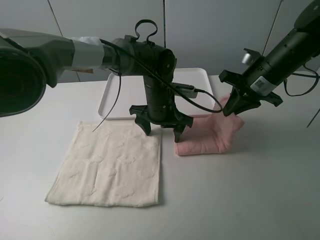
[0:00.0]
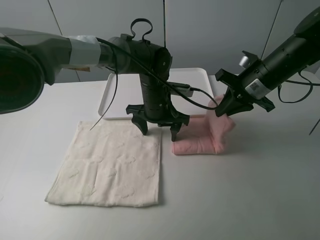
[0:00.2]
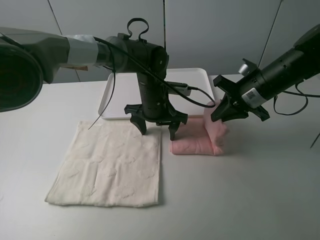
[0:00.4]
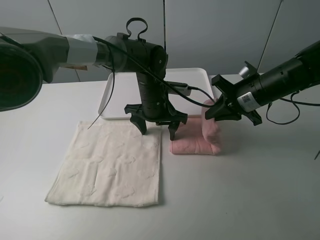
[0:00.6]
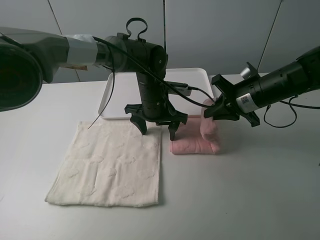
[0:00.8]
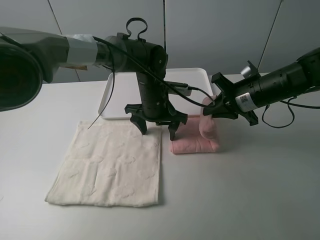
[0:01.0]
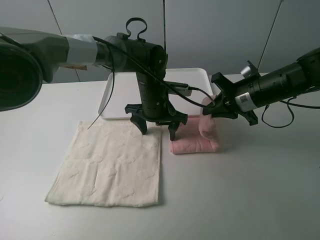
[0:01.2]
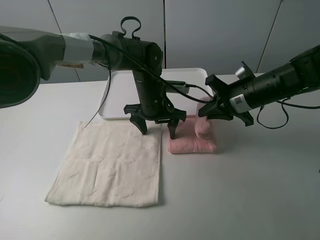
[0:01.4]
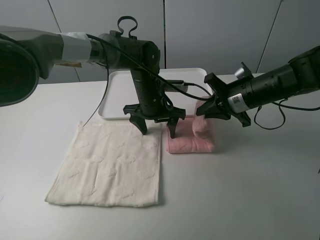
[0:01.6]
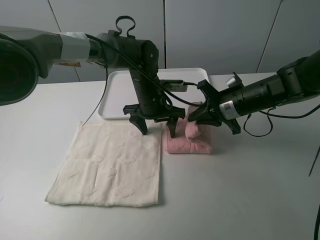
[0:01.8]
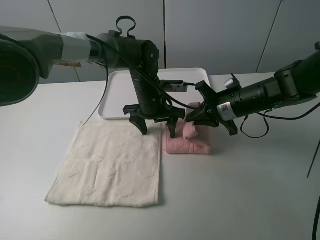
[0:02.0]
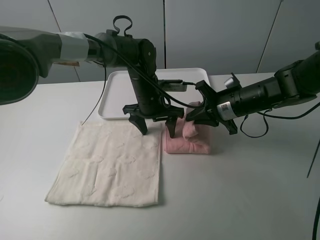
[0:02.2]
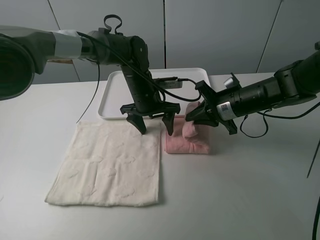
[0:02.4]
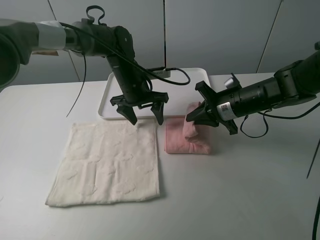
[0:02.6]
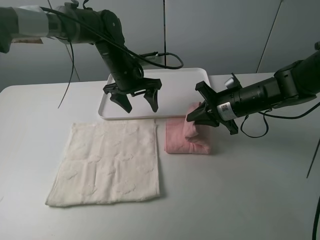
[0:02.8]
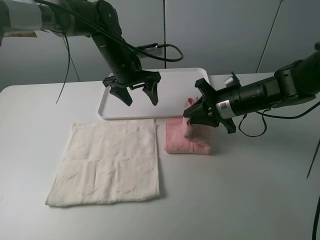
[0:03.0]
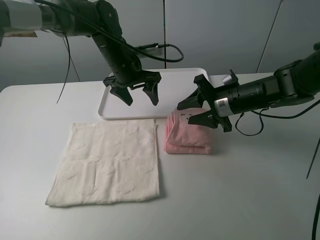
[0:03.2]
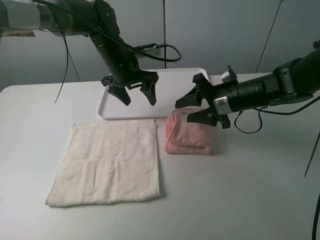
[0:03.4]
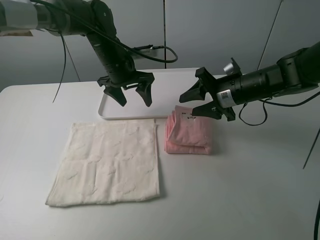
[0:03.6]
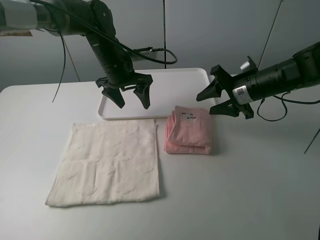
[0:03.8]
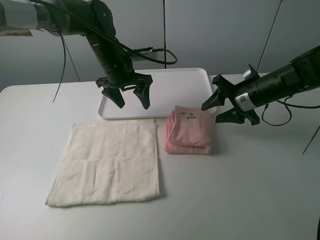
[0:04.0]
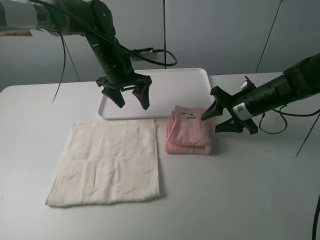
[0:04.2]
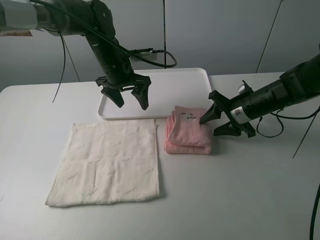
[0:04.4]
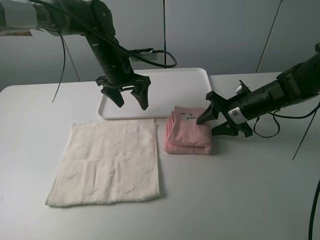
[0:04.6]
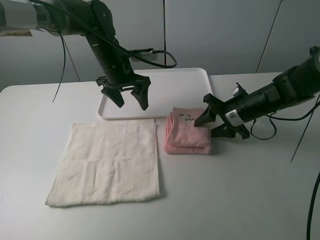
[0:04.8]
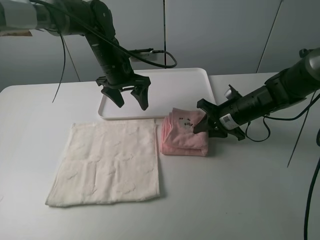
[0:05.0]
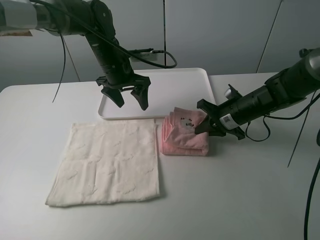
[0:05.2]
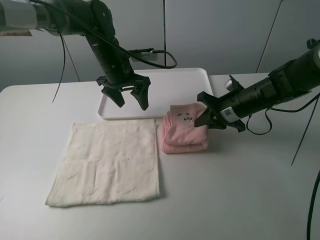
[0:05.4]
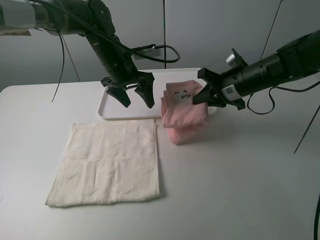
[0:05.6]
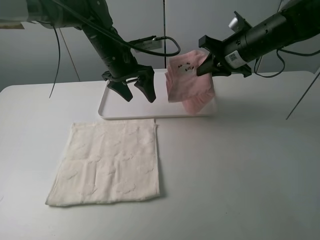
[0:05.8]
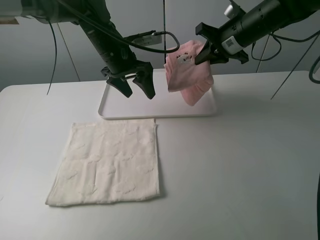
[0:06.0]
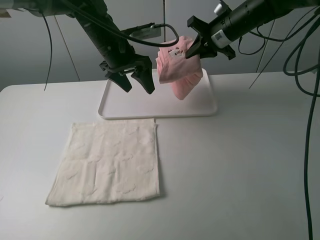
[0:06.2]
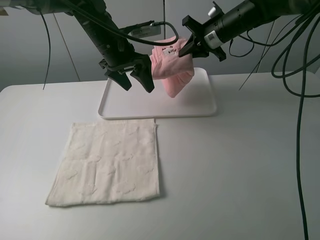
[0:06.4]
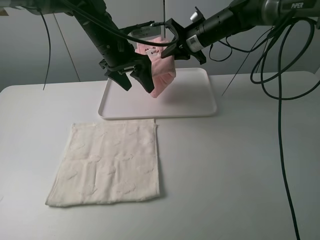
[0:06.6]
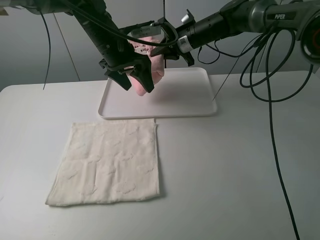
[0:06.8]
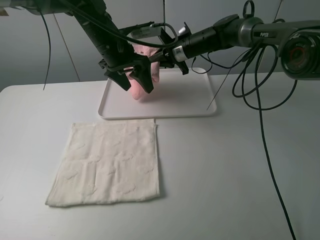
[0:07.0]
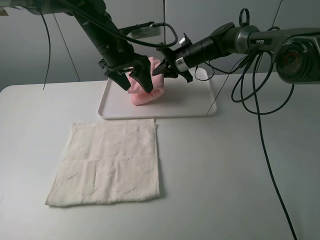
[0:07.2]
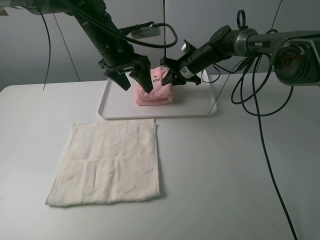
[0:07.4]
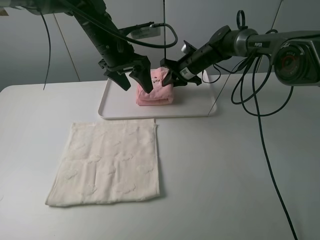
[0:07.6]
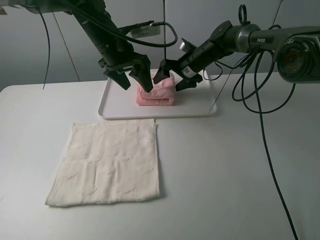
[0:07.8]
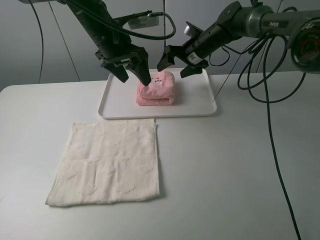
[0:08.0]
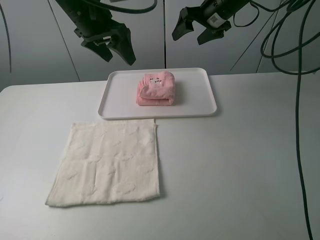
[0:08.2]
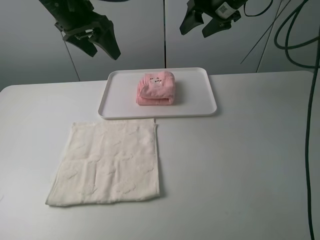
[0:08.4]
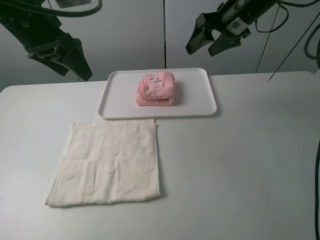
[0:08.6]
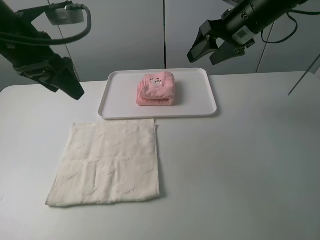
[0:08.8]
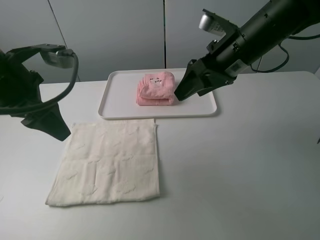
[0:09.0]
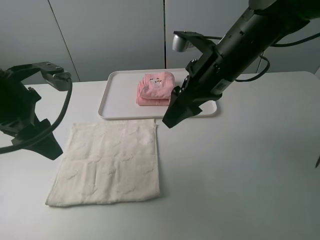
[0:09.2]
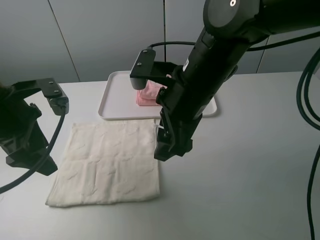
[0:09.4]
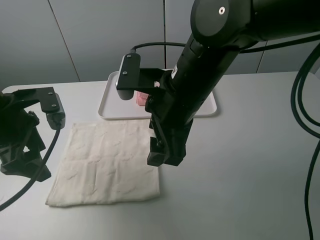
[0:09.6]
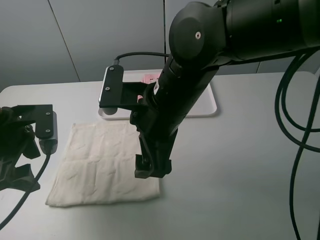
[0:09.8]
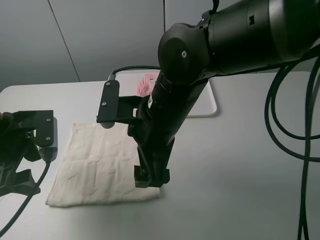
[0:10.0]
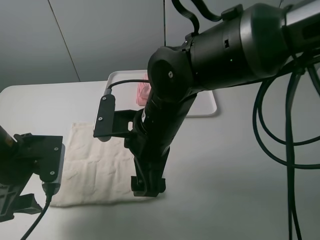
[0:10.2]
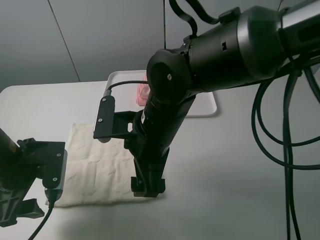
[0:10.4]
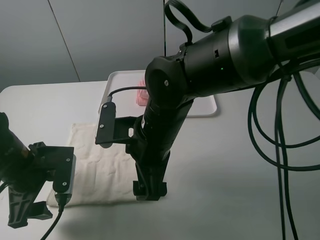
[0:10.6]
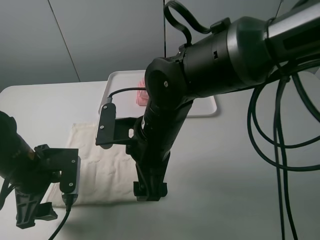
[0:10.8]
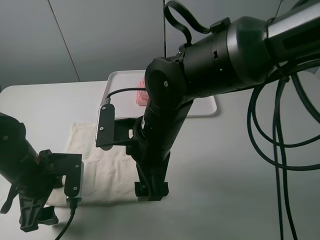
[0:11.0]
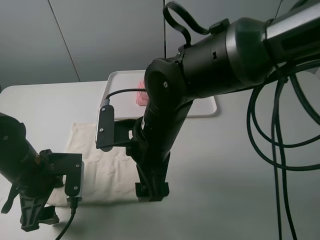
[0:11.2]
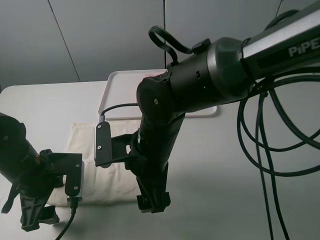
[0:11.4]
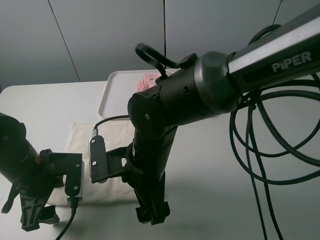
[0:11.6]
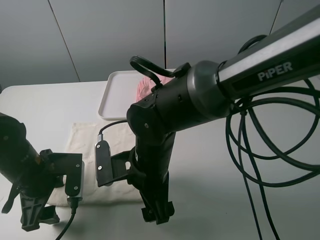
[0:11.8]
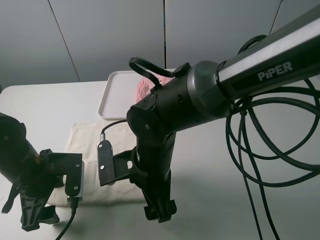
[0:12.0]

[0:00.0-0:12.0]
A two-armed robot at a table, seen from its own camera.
Task of the whole recording: fold one of the towels by two grippers and place it on the tray,then fold another towel by two grippers and place it on the folded towel.
Step, 0:00.0 to 0:03.4: Fold the pink towel from right to left with right gripper.
Step, 0:03.6 to 0:05.2: Grasp the pink towel with the right gripper.
Step, 0:05.4 to 0:08.0: Move the pink towel to the plate with the right gripper.
0:00.0 to 0:01.6: The right gripper changes place by some 5 cm.
0:01.6 to 0:03.0: The left gripper is displaced to the left and upward by about 10 cm.
0:03.0 to 0:04.4: The right gripper ends up approximately 5 cm from where it was.
0:04.4 to 0:06.0: The right gripper moves upward and forward, approximately 15 cm, and closes up.
0:06.0 to 0:07.6: The right gripper goes approximately 20 cm downward, forward and to the left.
0:07.6 to 0:09.0: The left gripper travels backward and to the left by roughly 20 cm; the right gripper shifts roughly 25 cm backward and upward, and opens.
0:09.0 to 0:10.4: The right gripper is displaced to the left, backward and downward by some 20 cm. Meanwhile the left gripper shifts roughly 15 cm downward and backward.
0:10.4 to 0:12.0: The right gripper is displaced downward by about 5 cm.

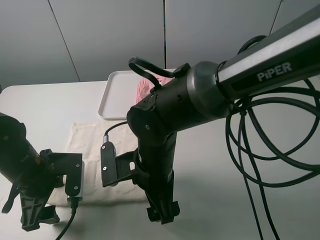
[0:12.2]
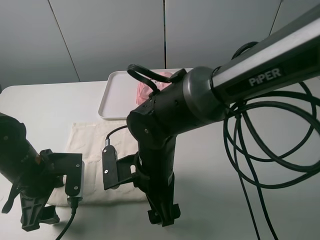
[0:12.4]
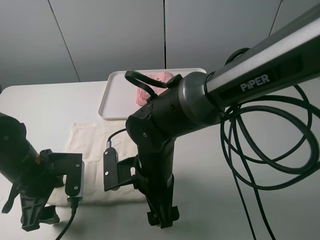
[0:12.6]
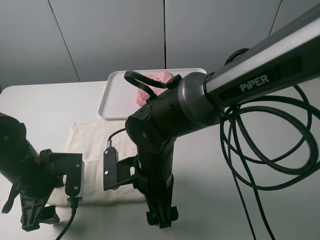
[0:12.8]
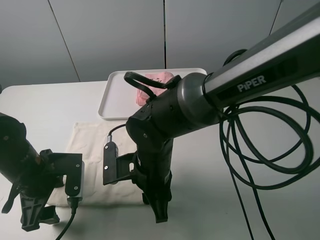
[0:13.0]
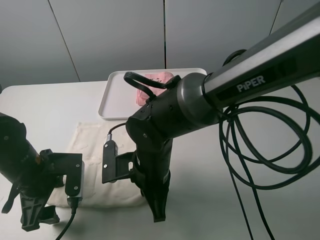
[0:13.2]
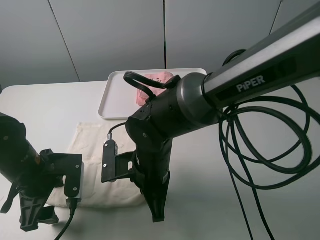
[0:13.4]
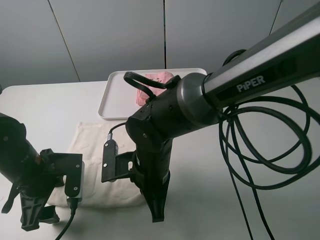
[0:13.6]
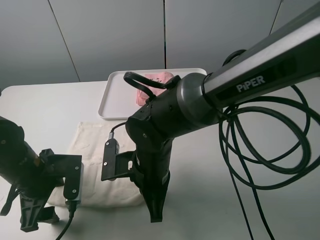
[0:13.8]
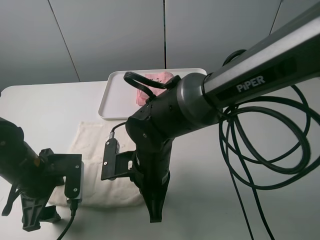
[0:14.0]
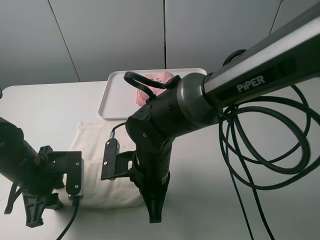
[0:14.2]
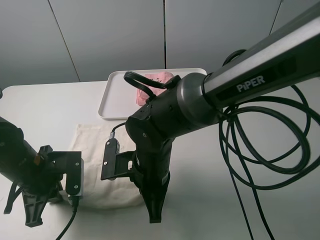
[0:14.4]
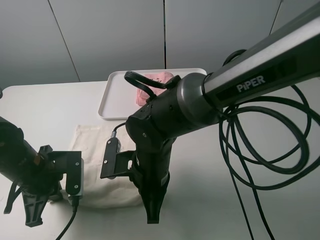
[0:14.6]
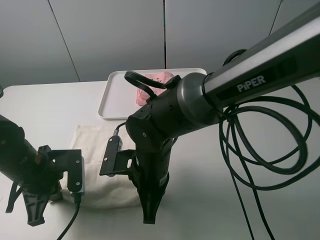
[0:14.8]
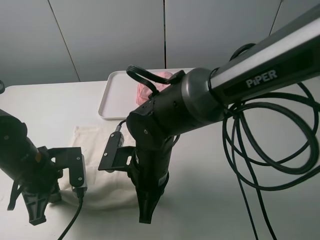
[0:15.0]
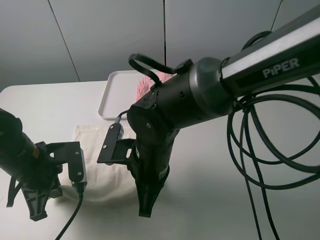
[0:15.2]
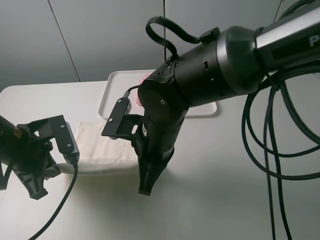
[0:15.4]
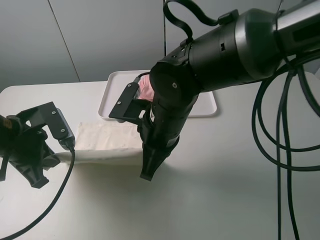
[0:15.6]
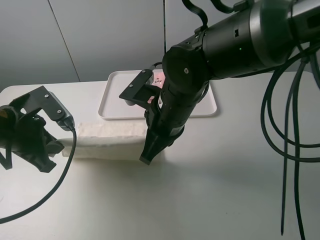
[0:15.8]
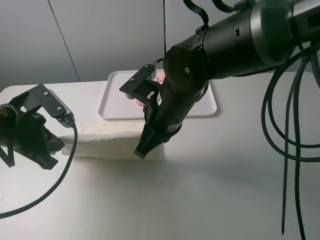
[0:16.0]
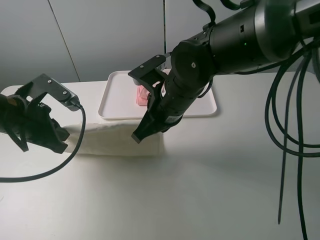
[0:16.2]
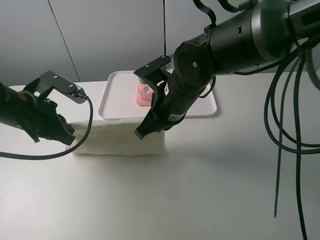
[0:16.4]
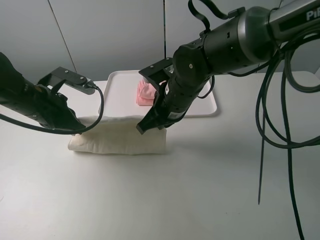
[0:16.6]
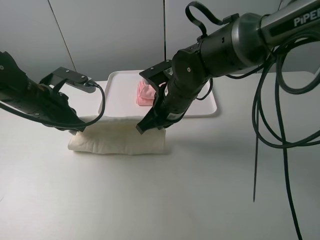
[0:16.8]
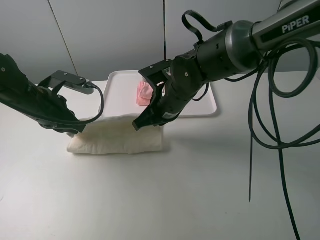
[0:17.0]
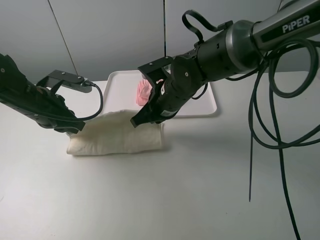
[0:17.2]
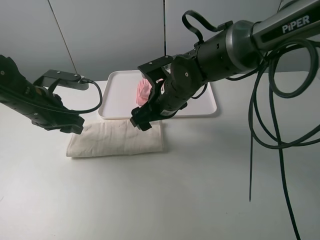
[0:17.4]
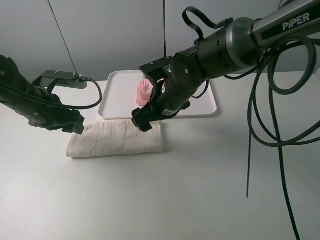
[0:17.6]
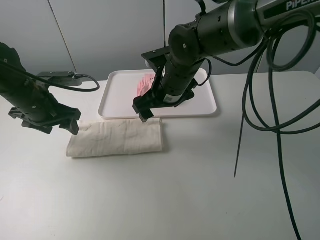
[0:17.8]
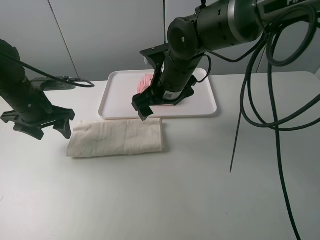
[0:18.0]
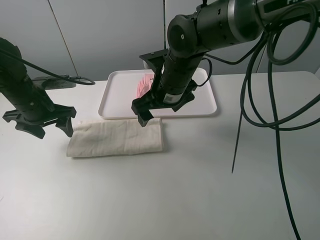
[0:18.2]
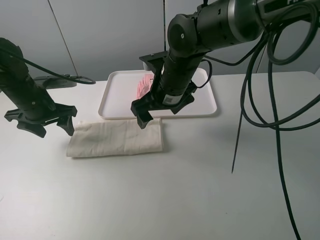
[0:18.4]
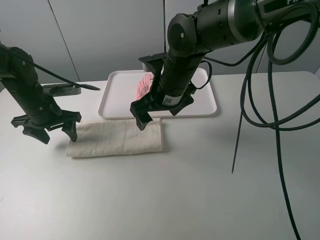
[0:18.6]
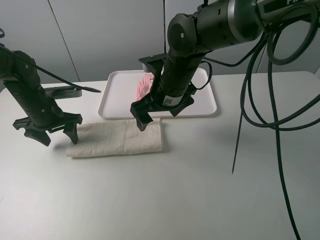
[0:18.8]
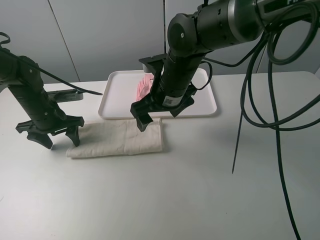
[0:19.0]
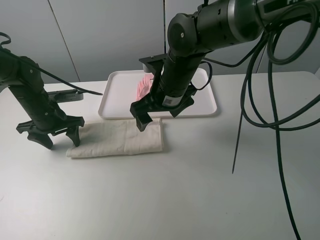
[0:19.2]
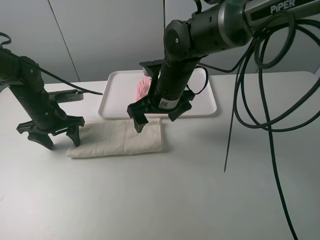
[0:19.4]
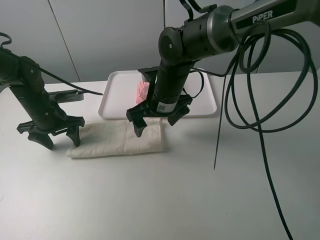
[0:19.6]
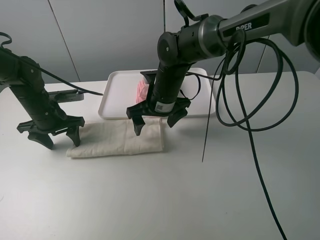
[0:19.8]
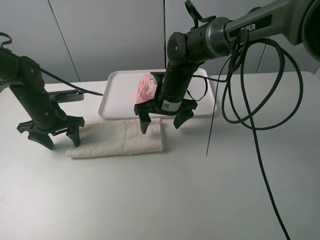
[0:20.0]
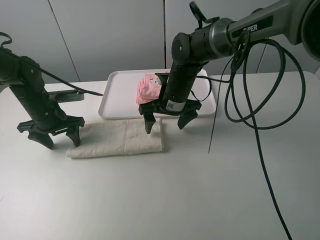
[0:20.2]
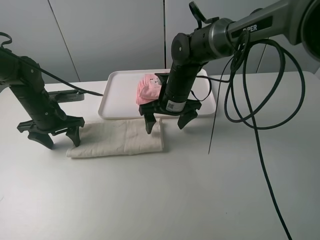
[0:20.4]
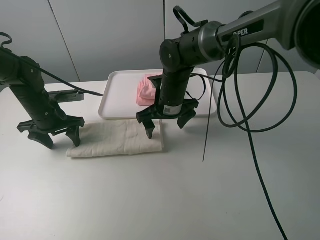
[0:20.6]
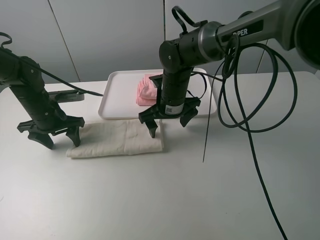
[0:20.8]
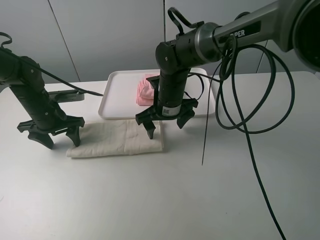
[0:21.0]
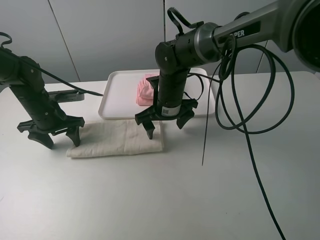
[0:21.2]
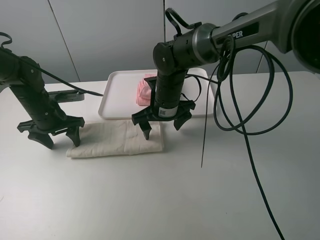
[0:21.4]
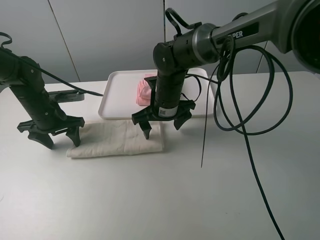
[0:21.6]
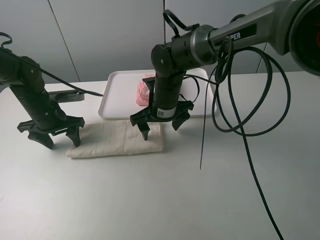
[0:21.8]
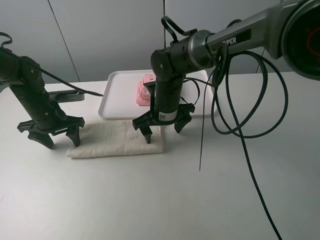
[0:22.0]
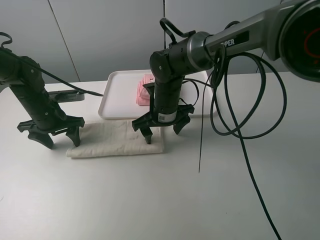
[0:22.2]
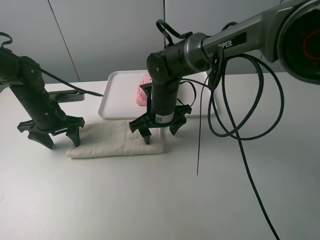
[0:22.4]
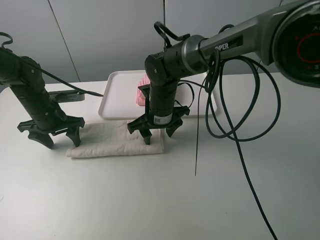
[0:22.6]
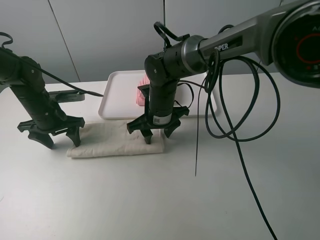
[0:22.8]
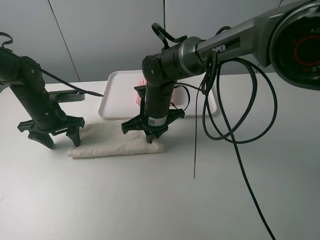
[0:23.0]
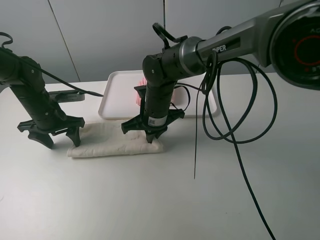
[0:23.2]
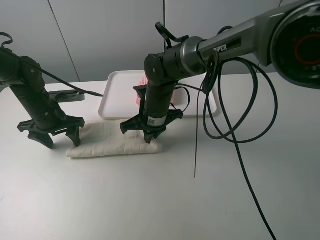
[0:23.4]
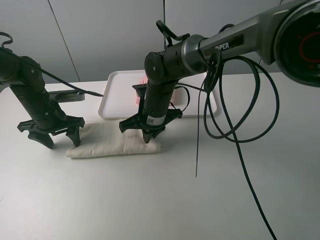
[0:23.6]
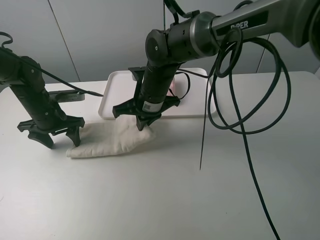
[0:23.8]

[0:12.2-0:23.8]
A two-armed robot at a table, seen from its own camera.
Task of the whole recording: fold one of the towels by two grippers and place it on the tray,then fold another towel by two grippers and place it on the folded towel.
Step, 0:12.2 to 0:14.4: Grasp the white towel with the left gripper.
Step, 0:14.6 to 0:17.4: Fold the white towel upwards with the left gripper.
Step, 0:17.8 to 0:19.4: Press the white towel with the left gripper.
Step, 0:19.6 to 0:23.4: Grasp the white towel with the right gripper.
0:12.2 to 0:13.6: The right gripper closes.
0:13.6 to 0:15.0: The left gripper closes its fingers.
0:15.0 to 0:16.6: The right gripper shifts some 10 cm forward; the left gripper shifts roughly 10 cm forward and upward.
0:16.6 to 0:18.0: The right gripper opens up, while the left gripper ends up about 5 cm from where it was, and opens up.
0:18.0 to 0:19.4: The left gripper travels downward by some 5 cm.
0:19.4 to 0:21.0: The right gripper moves approximately 5 cm.
0:21.0 to 0:22.4: The grippers move only a little.
0:22.4 to 0:23.8: The right gripper travels upward by approximately 5 cm, and closes its fingers.
